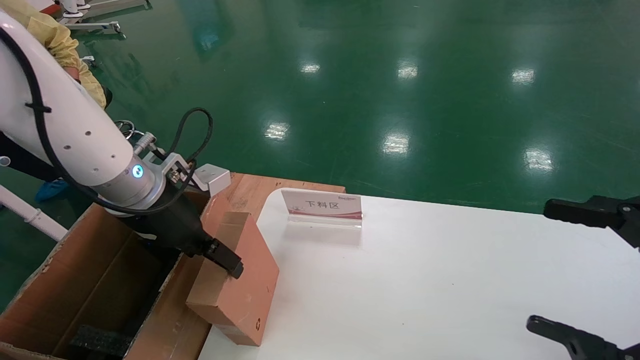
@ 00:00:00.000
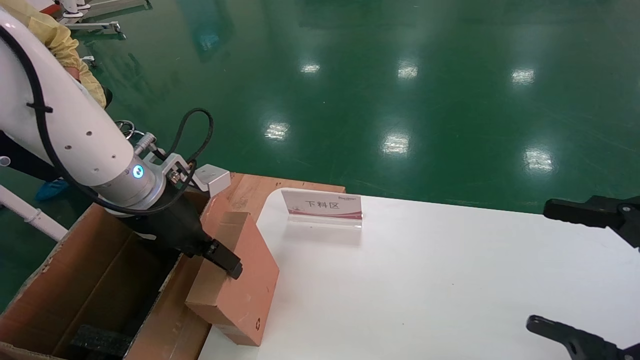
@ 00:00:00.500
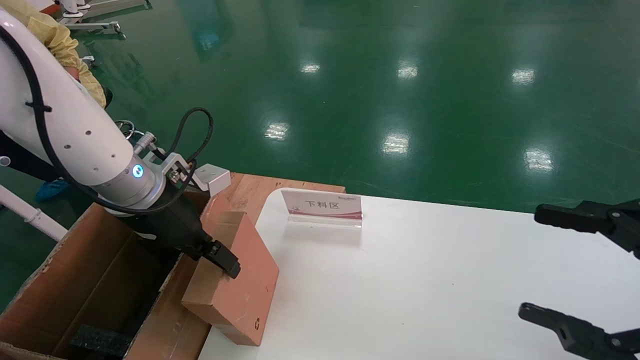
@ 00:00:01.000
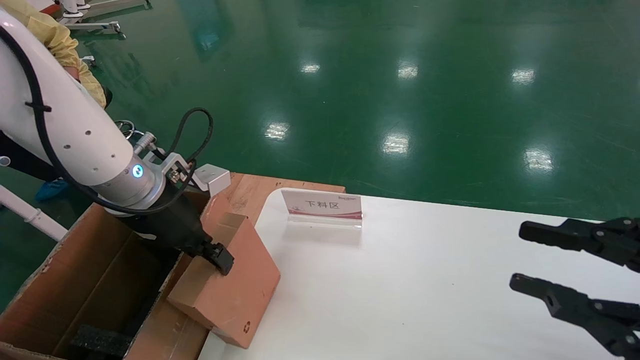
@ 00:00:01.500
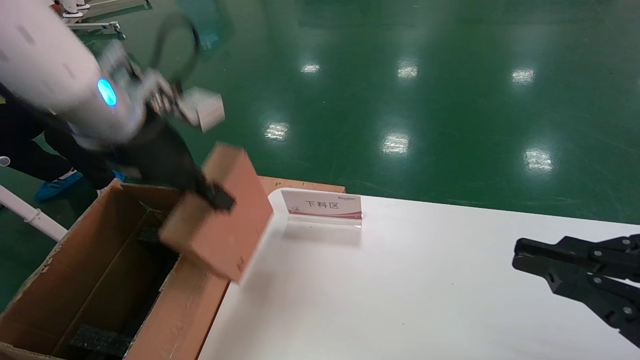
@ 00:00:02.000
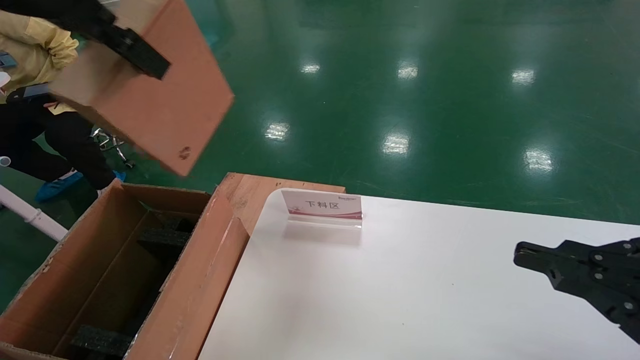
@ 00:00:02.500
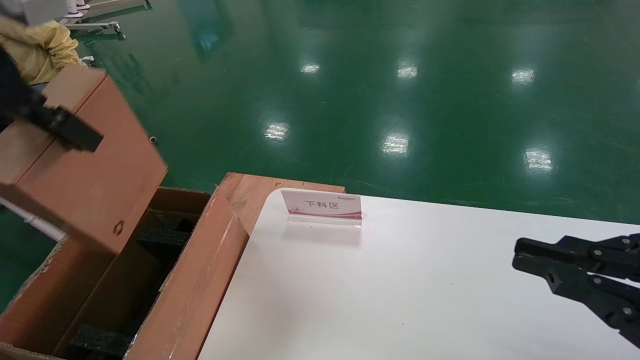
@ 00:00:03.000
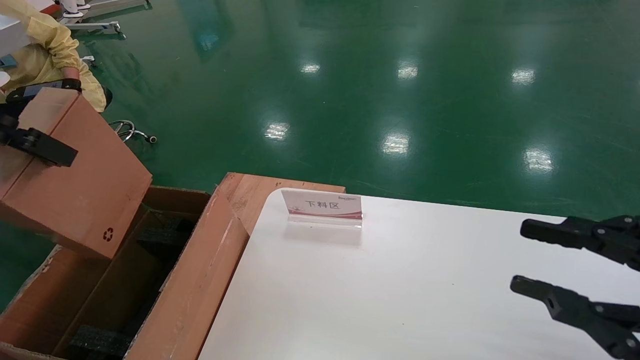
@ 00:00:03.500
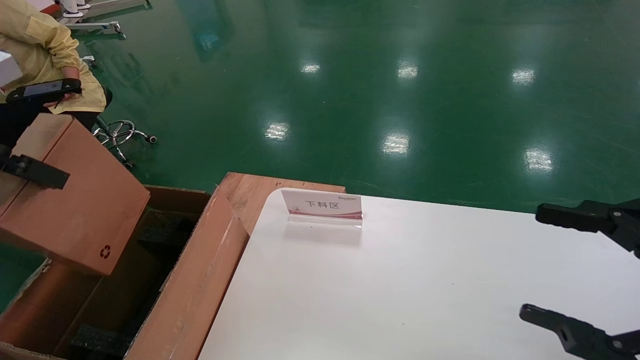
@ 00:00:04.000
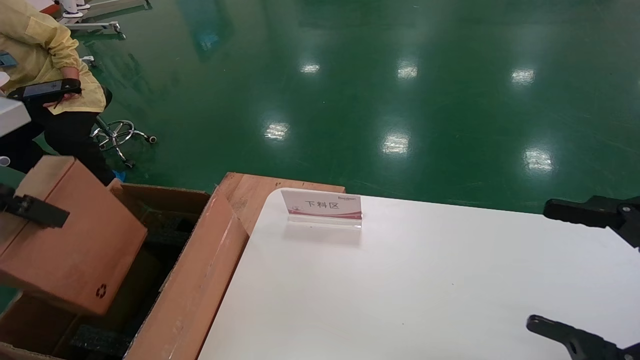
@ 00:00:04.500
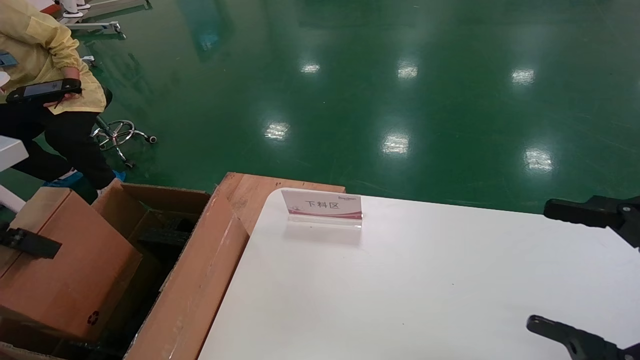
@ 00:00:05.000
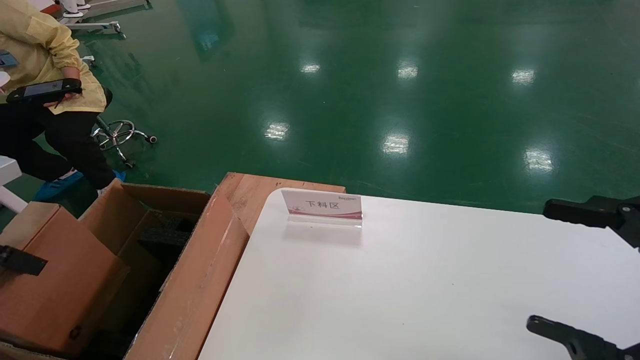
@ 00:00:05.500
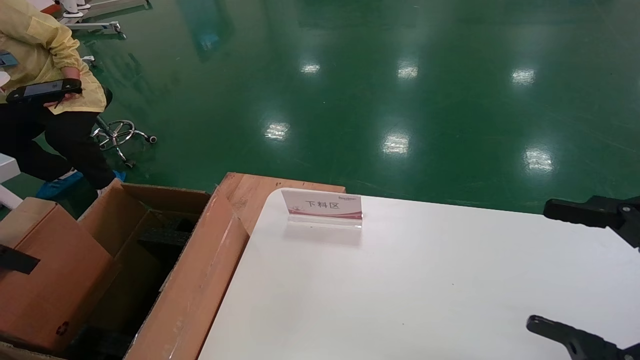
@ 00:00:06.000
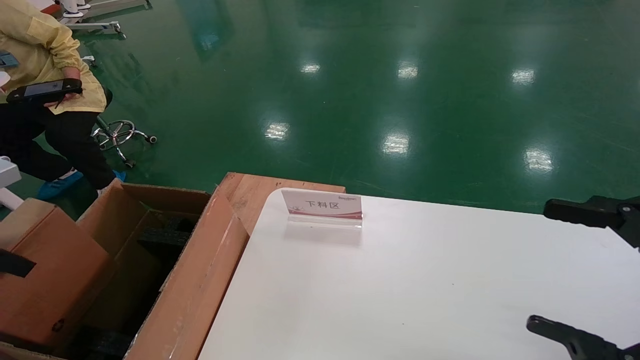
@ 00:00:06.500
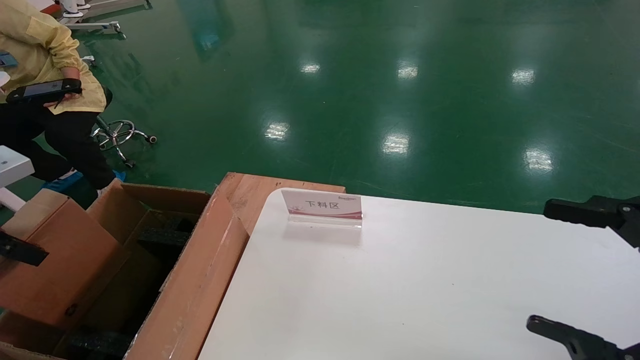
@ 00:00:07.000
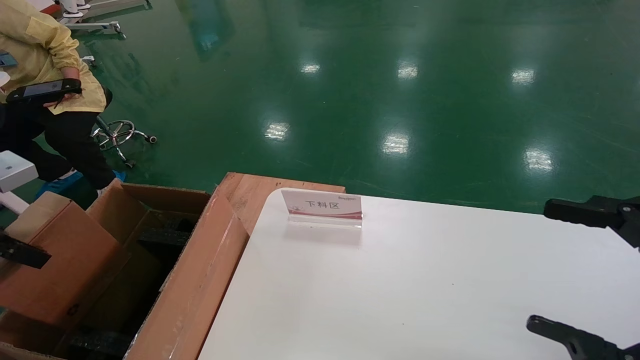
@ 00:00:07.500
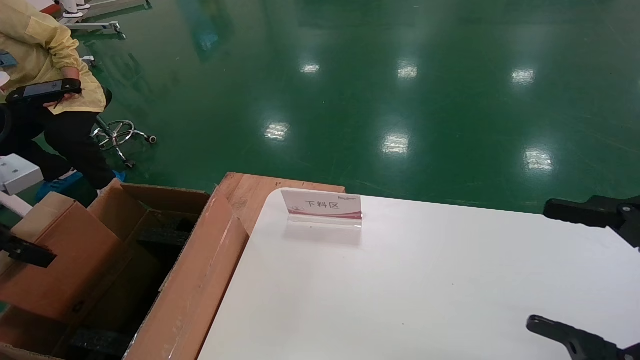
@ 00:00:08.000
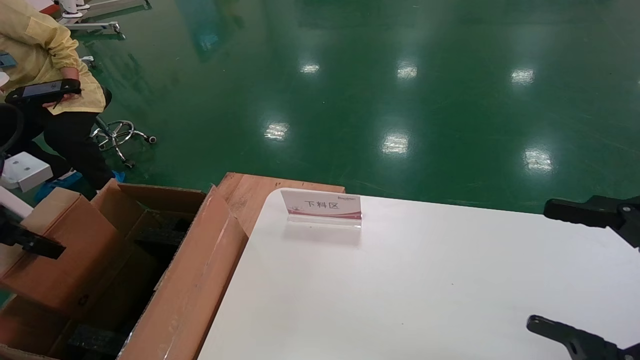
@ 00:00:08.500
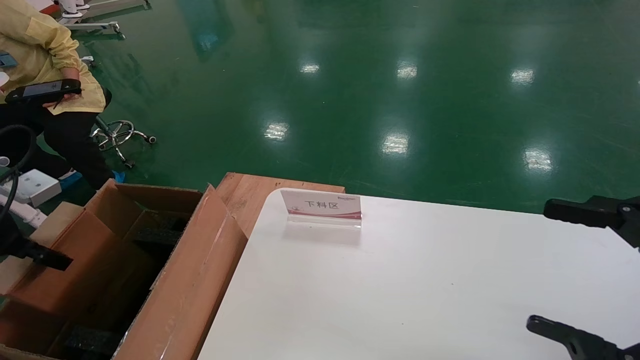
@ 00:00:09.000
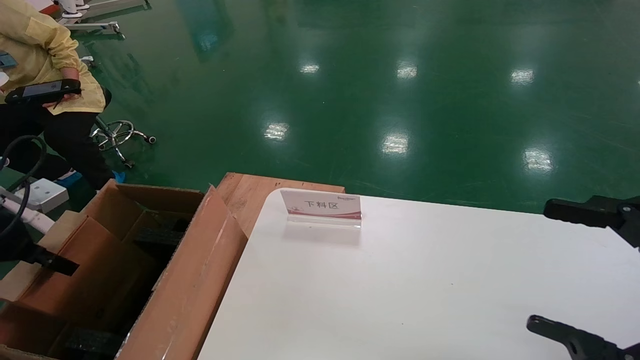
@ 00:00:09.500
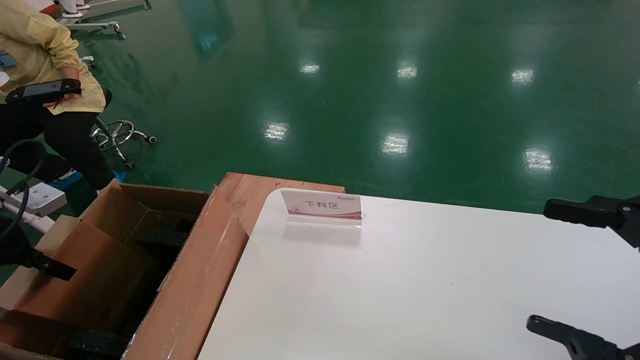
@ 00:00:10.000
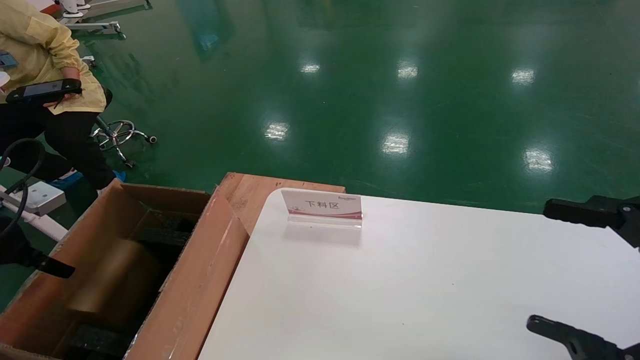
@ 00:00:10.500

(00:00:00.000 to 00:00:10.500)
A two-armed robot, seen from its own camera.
Task of the whole recording: pick up the small cardboard box and load it into the large cardboard box.
Step, 00:00:02.000 - 00:00:10.500: Place the mouse and power cord box into the case.
00:00:00.000 - 00:00:02.000: The left gripper is displaced upward by approximately 10 cm, and closes. Meanwhile the right gripper closes up.
00:00:02.000 - 00:00:04.000: The left gripper heads to the left and backward, covering roughly 20 cm, while the right gripper opens.
00:00:04.000 - 00:00:06.500: The left gripper travels downward and to the left by approximately 15 cm.
00:00:06.500 - 00:00:08.500: The left gripper moves about 5 cm.
00:00:08.500 - 00:00:10.500: The left gripper shifts by approximately 5 cm, and opens.

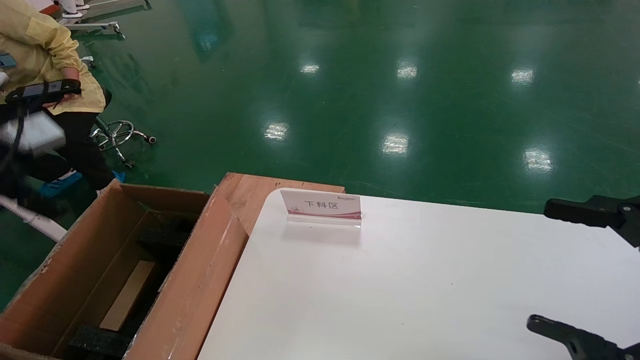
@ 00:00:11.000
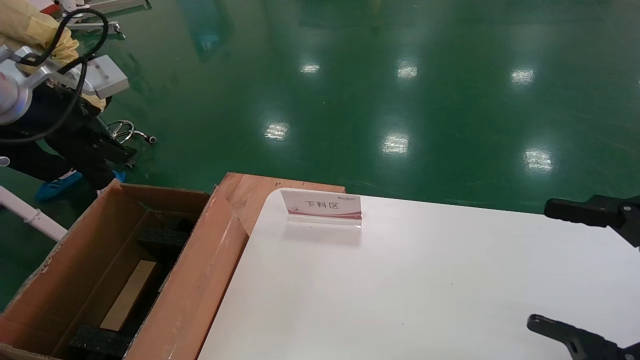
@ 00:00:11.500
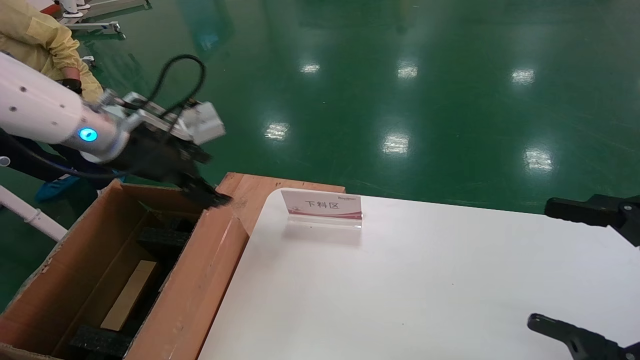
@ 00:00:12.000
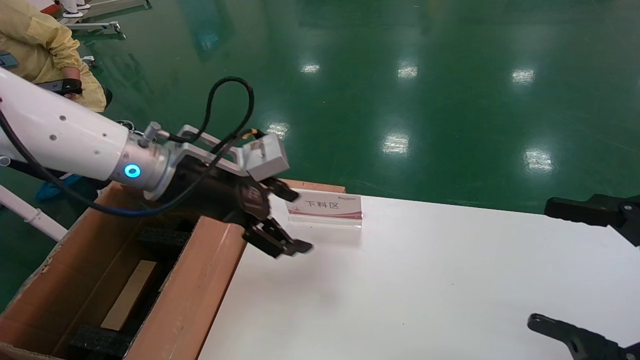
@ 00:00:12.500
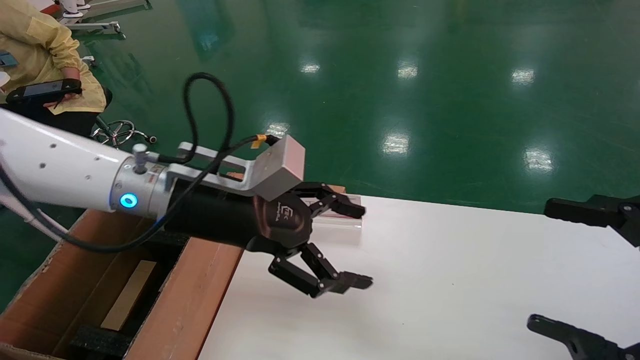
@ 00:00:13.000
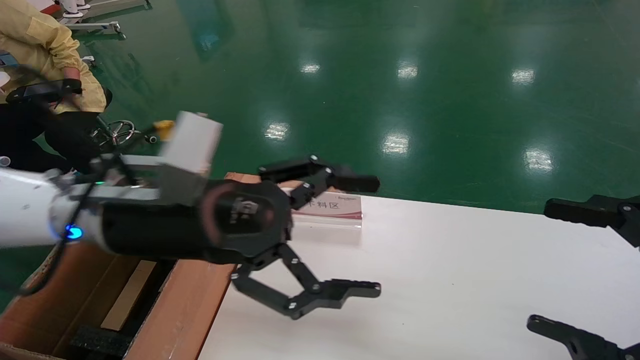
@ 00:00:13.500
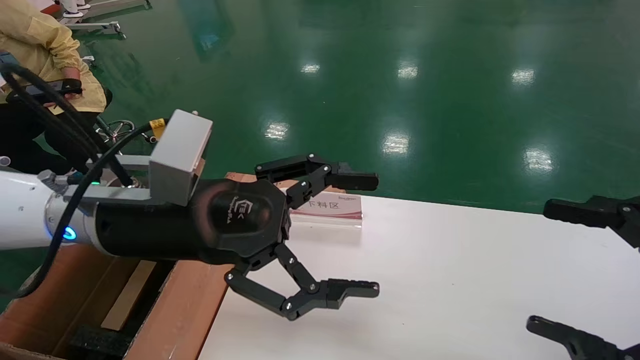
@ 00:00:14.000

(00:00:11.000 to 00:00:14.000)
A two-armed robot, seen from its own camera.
Task of the whole recording: pick up the small cardboard box and load it into the large cardboard box.
00:00:11.000 - 00:00:12.500: The left gripper travels to the right by roughly 25 cm.
00:00:12.500 - 00:00:14.000: The left gripper shifts about 10 cm backward.
